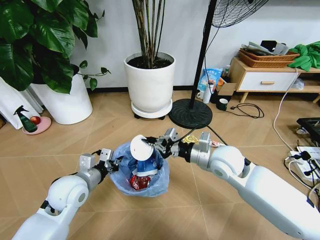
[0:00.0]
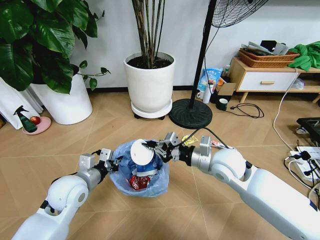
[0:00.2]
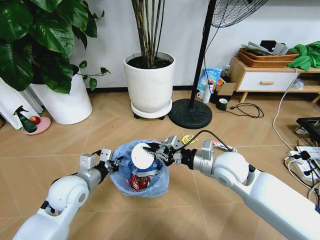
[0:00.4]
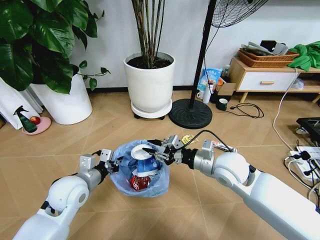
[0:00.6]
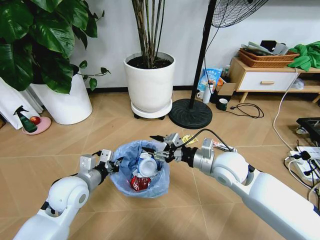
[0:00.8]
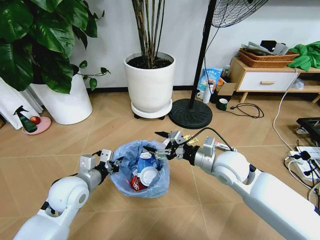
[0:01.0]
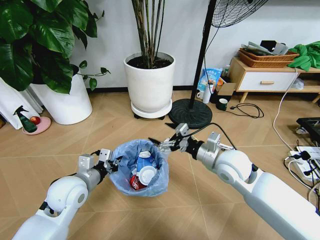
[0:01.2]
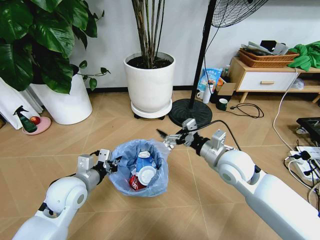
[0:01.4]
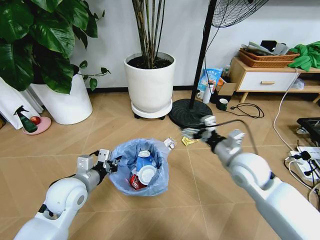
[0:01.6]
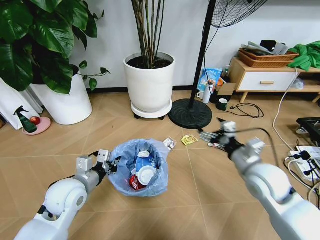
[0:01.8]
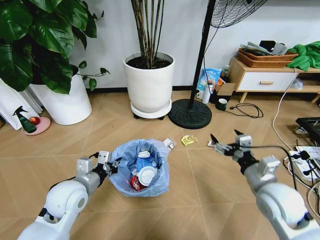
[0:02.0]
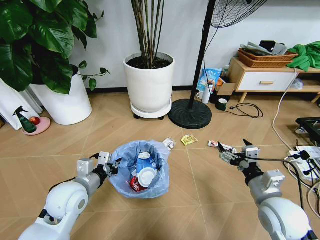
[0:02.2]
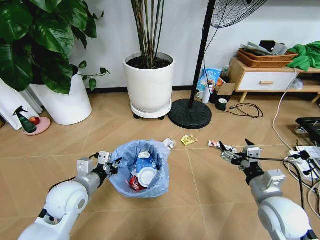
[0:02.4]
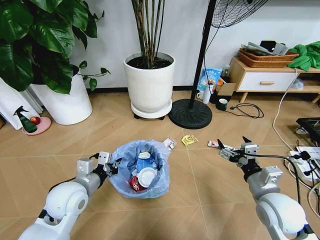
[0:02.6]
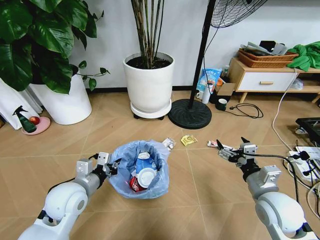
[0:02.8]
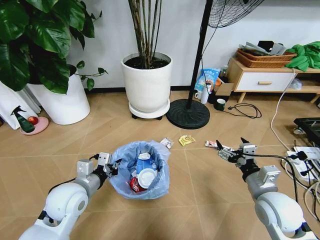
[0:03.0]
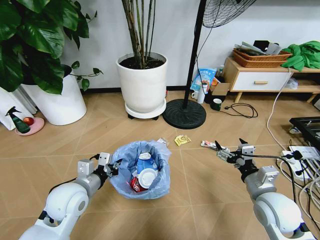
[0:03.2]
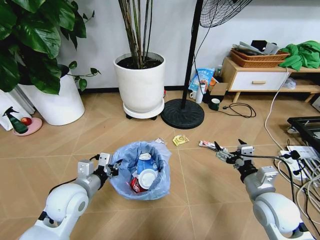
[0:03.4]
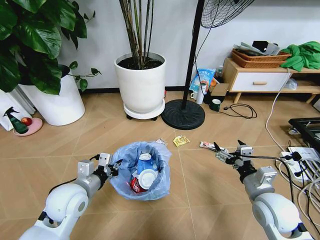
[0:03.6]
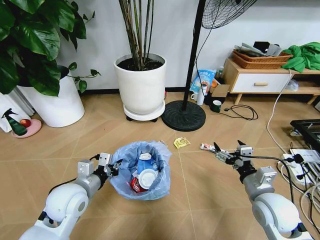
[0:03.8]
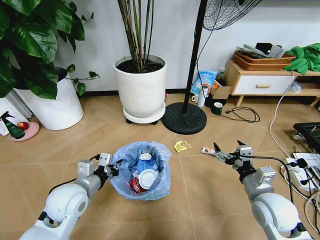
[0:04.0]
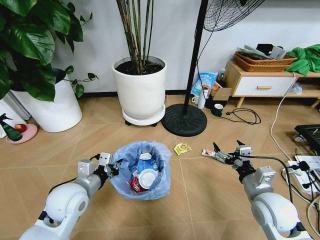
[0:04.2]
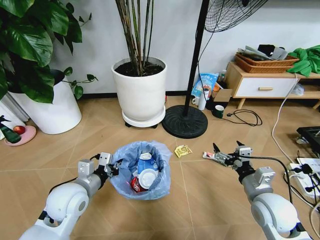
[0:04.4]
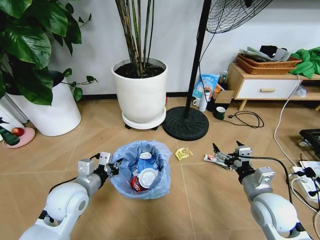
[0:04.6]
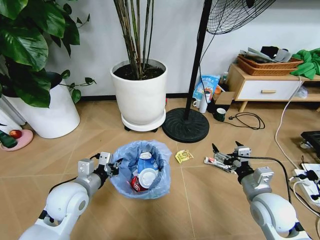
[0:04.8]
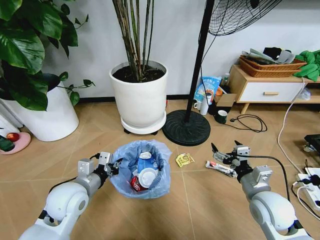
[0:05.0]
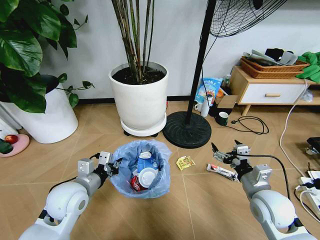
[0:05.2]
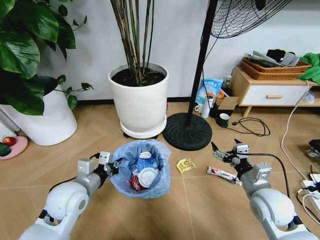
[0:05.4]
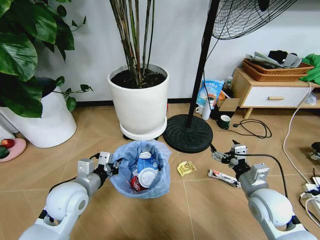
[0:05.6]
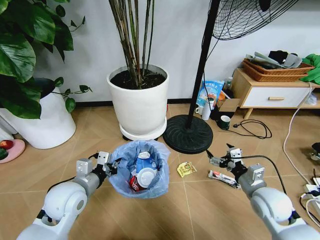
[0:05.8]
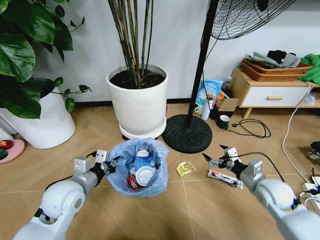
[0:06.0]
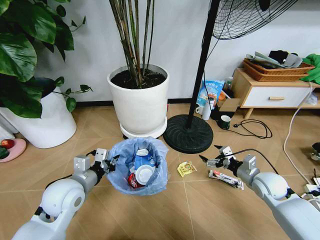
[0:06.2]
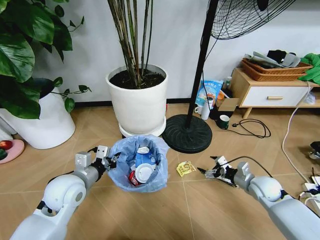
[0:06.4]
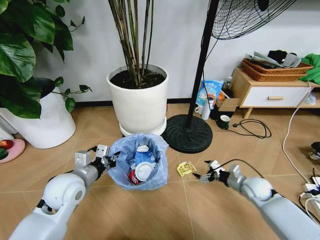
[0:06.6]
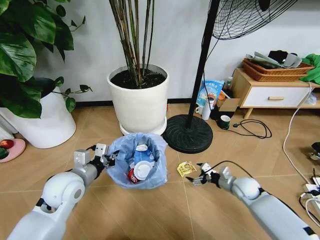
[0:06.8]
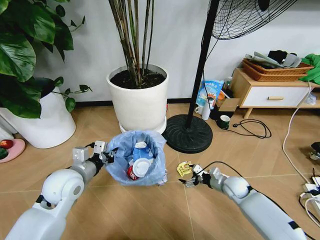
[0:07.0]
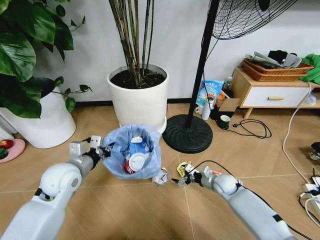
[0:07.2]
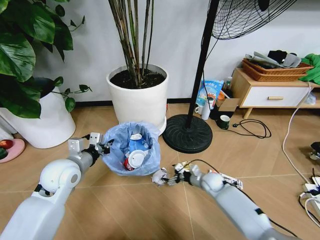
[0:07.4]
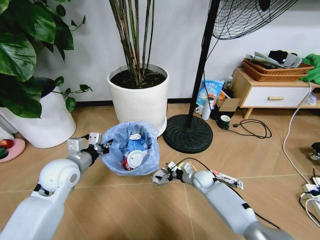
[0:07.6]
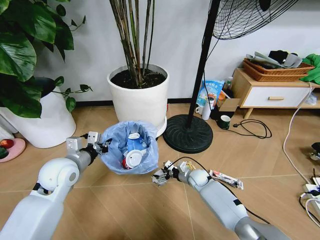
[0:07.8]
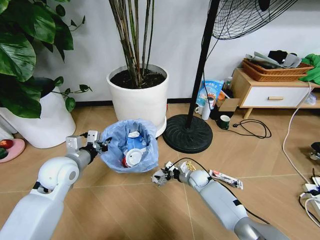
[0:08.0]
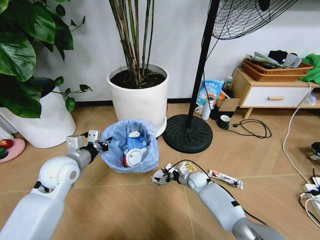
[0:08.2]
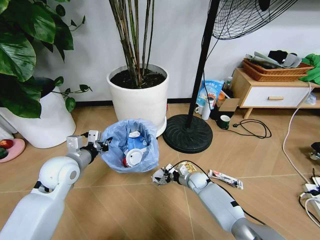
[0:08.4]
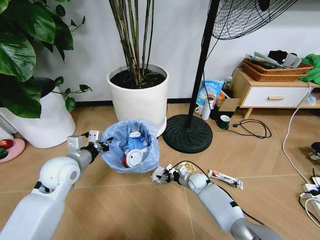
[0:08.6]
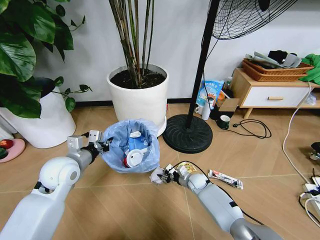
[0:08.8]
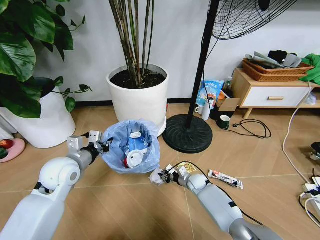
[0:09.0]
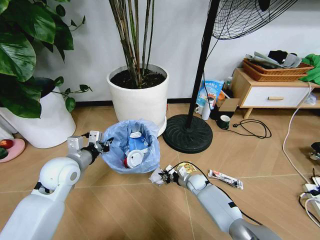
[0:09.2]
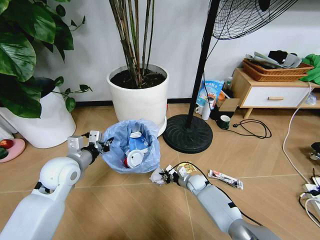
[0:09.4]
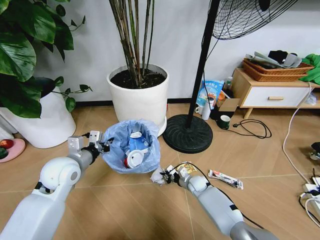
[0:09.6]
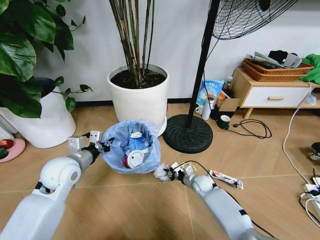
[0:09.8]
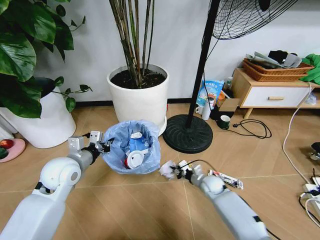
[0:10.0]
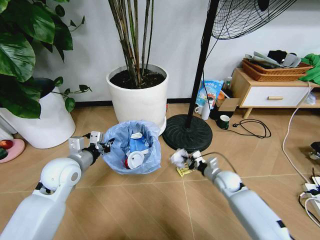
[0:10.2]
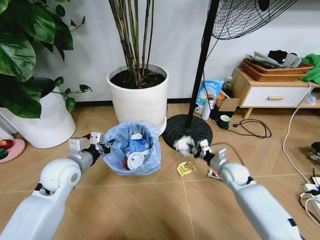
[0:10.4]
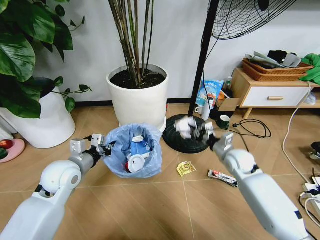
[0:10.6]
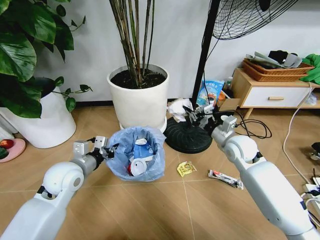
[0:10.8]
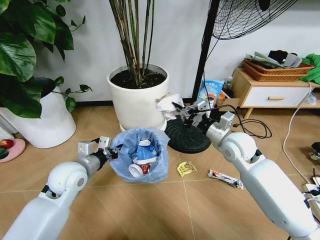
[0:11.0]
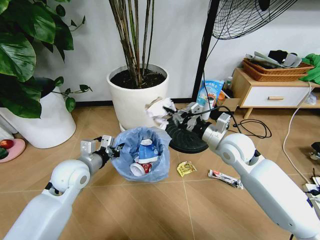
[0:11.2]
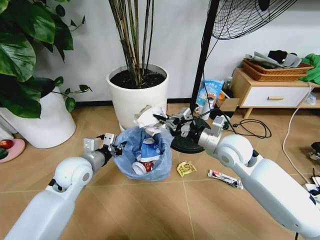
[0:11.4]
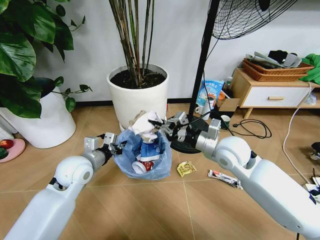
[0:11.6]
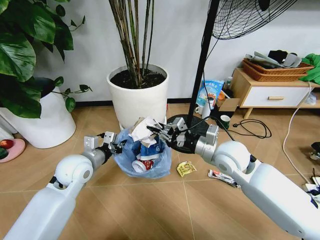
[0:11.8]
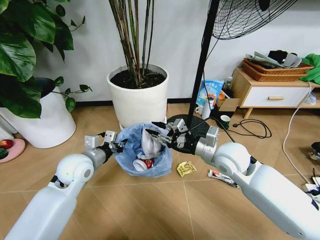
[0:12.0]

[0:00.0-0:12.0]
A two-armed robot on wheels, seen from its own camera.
Task of the whole recording: Pick up the trash bin and place the garbage on the floor into it.
0:00.0 to 0:01.6: The right gripper heads to the right, covering roughly 5 cm, and opens.
0:01.6 to 0:03.0: The right gripper shifts some 15 cm backward, to the right and downward.
0:04.4 to 0:06.0: The right gripper shifts about 10 cm to the right and forward.
0:06.0 to 0:07.6: The left gripper is displaced forward by approximately 5 cm, while the right gripper travels downward, to the left and forward by roughly 25 cm.
0:07.6 to 0:09.0: The right gripper closes up.
0:09.0 to 0:10.4: The right gripper shifts approximately 20 cm upward and to the right.
0:10.4 to 0:12.0: The right gripper travels upward and to the left by some 20 cm, and opens its fingers.

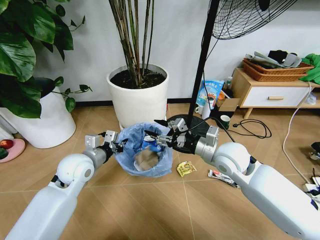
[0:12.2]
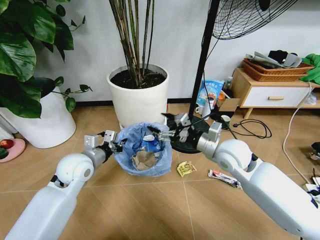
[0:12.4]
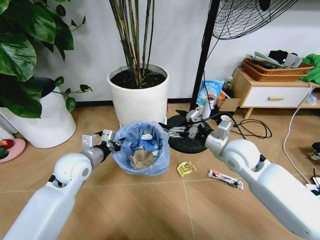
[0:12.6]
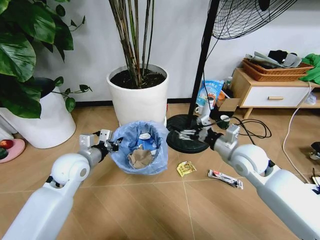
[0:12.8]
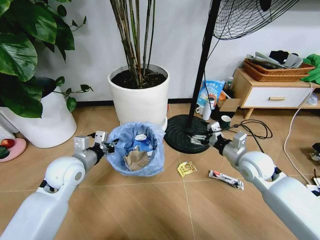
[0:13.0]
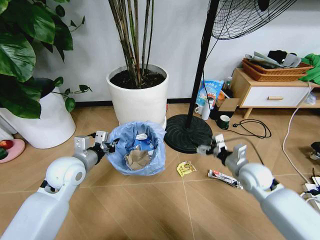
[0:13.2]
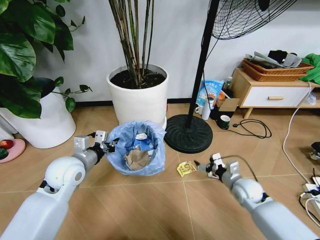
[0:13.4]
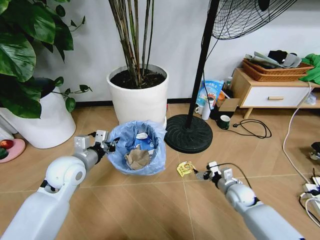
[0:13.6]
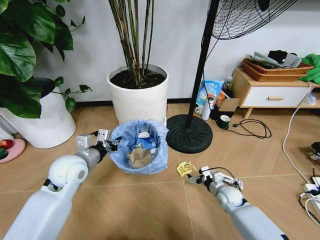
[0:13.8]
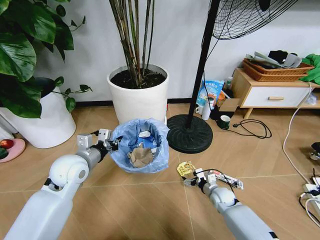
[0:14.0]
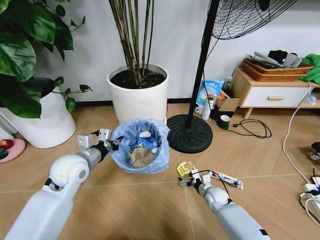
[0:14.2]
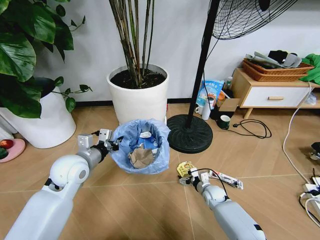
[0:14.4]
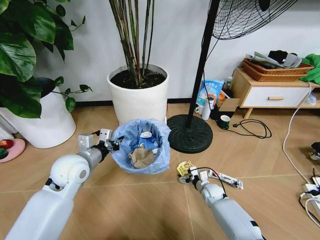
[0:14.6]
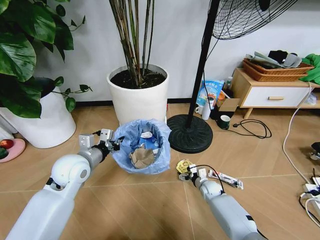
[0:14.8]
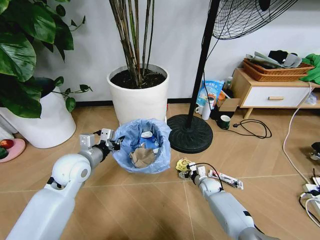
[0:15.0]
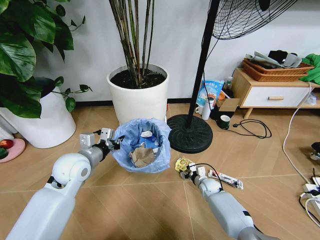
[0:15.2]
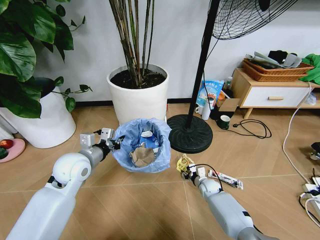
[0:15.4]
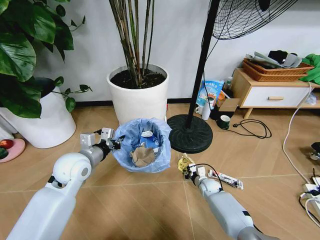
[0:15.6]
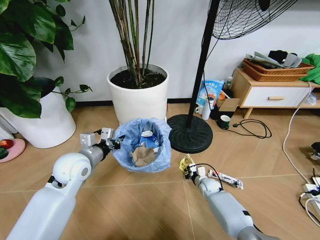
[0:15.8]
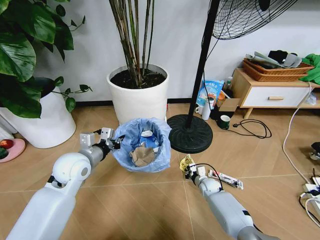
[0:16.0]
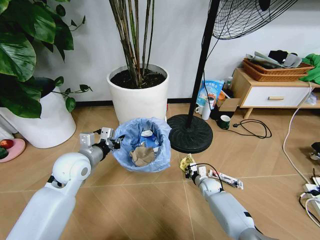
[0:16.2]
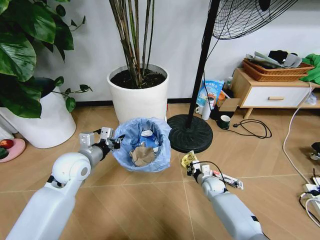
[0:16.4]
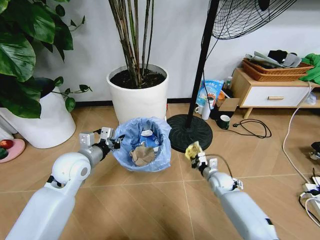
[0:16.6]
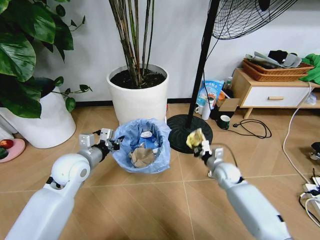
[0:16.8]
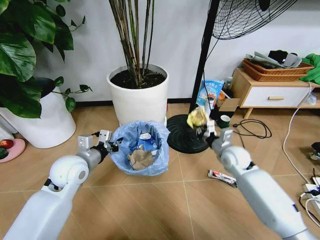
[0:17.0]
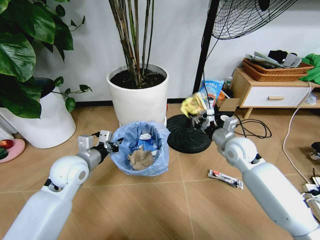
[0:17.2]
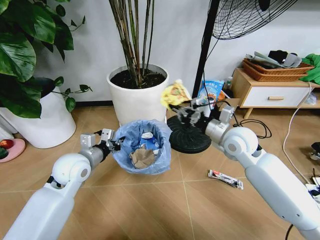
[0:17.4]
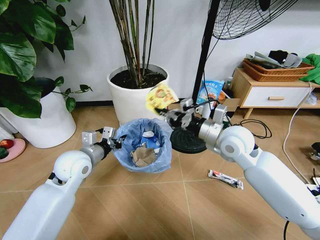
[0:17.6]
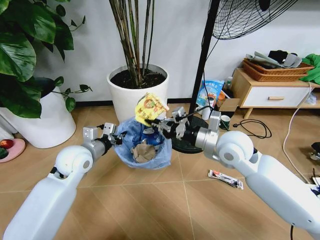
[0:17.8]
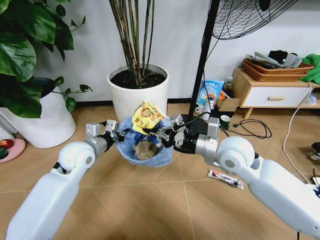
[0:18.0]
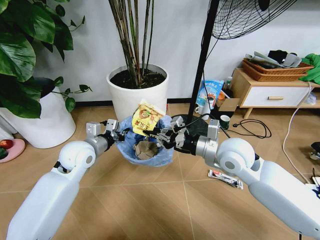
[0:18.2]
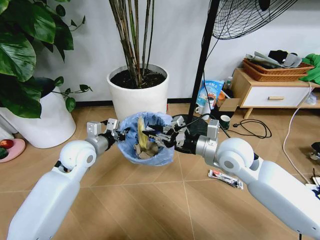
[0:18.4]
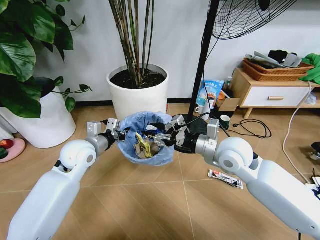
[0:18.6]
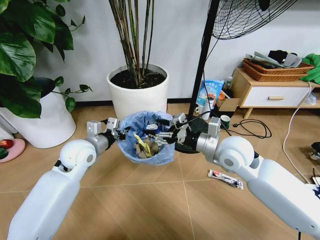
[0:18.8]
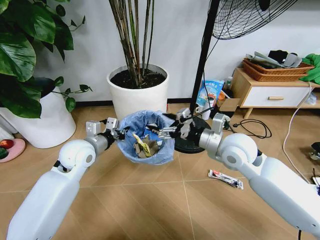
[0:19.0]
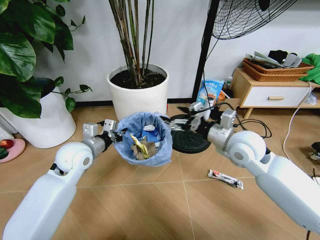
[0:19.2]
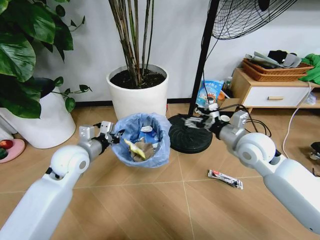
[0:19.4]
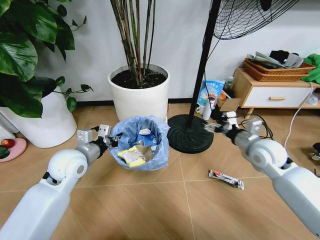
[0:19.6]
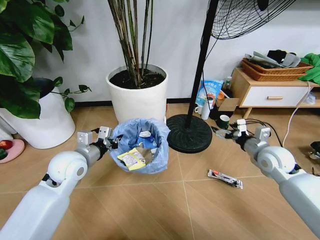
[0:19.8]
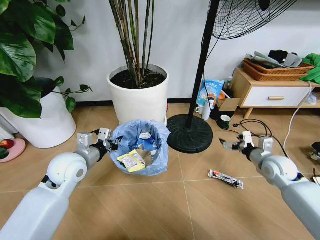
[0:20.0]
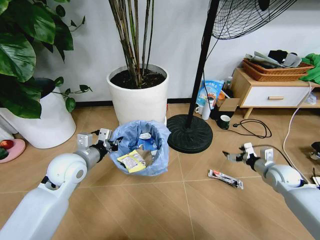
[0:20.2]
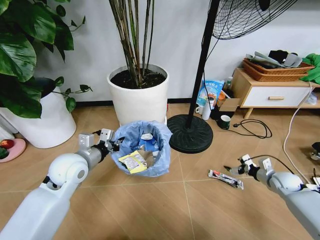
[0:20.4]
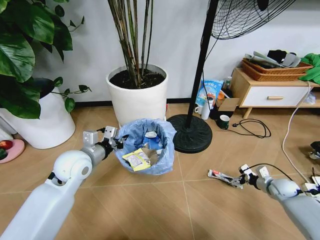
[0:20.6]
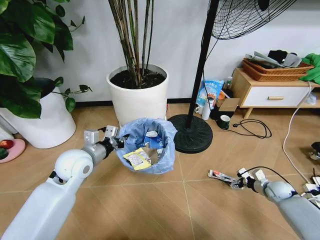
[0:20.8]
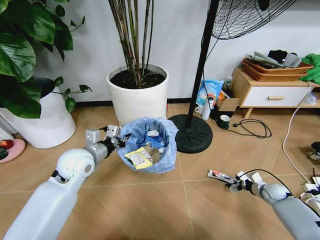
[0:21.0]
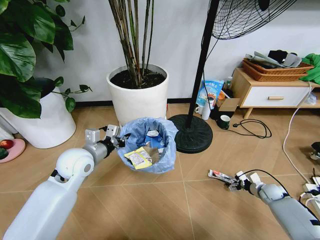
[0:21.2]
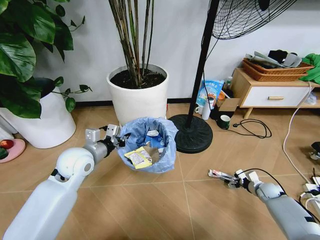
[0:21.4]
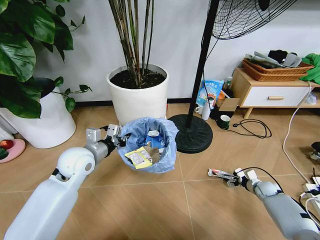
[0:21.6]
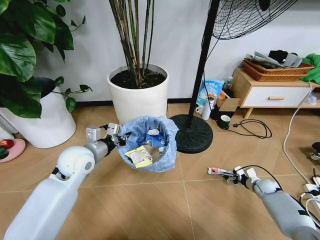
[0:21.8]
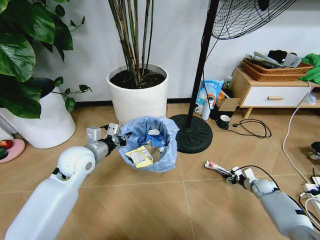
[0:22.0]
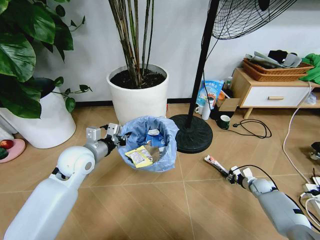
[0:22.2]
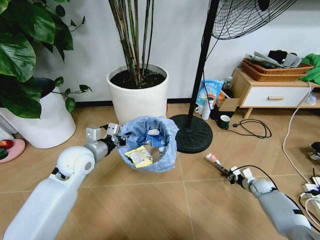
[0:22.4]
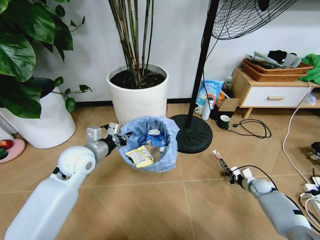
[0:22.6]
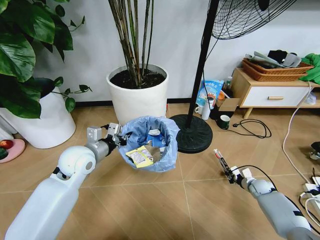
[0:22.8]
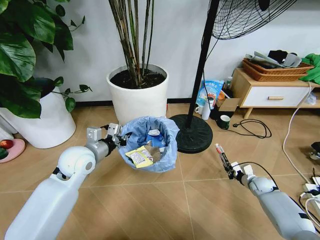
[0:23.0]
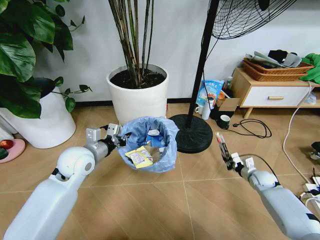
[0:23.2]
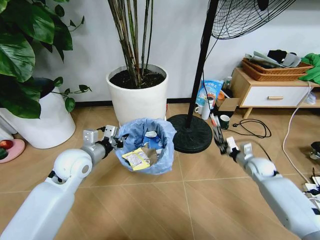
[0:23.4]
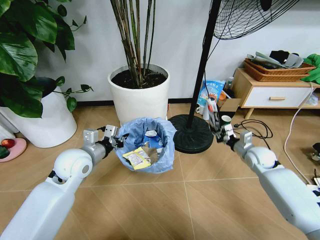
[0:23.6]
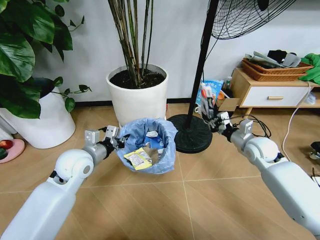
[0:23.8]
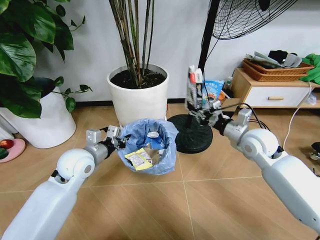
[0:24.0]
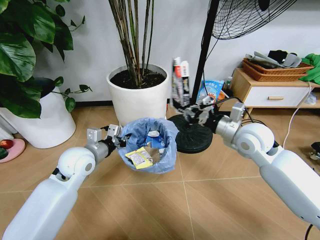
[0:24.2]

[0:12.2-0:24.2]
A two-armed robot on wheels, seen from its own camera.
Task of the whole recording: Pick up the trash bin and place the garbage on the floor into it.
0:12.2 to 0:13.8: The right gripper moves downward, some 30 cm, and opens up.
0:13.8 to 0:15.2: The right gripper is displaced forward, downward and to the left by some 10 cm.
0:15.2 to 0:16.6: The right gripper travels upward by approximately 5 cm, and closes its fingers.
0:16.6 to 0:18.2: The right gripper moves upward, about 30 cm.
0:18.2 to 0:19.8: The right gripper is displaced to the right and downward by roughly 20 cm, and opens up.
0:19.8 to 0:21.2: The right gripper heads downward and to the right, covering approximately 30 cm.
0:21.2 to 0:22.6: The right gripper closes its fingers.
0:22.6 to 0:24.2: The right gripper shifts some 40 cm upward and to the left.
